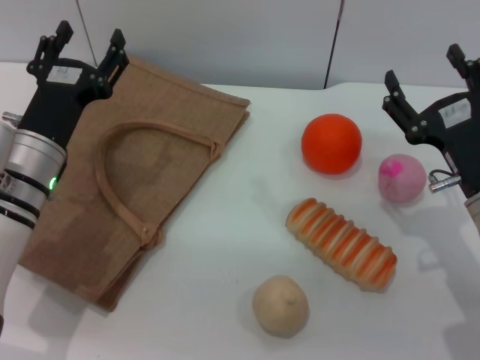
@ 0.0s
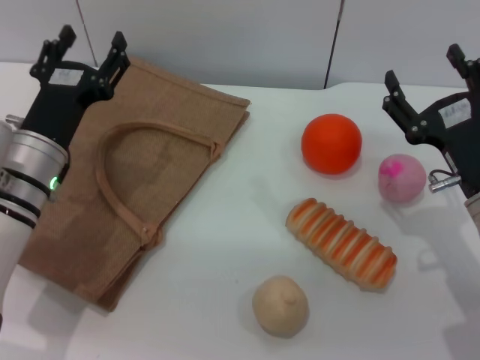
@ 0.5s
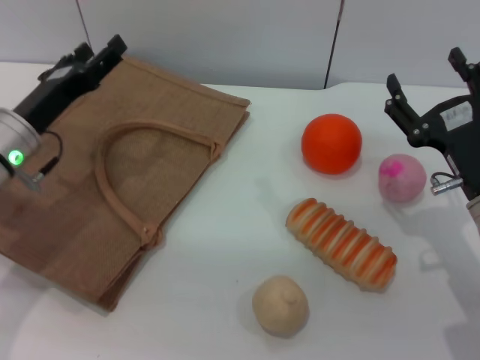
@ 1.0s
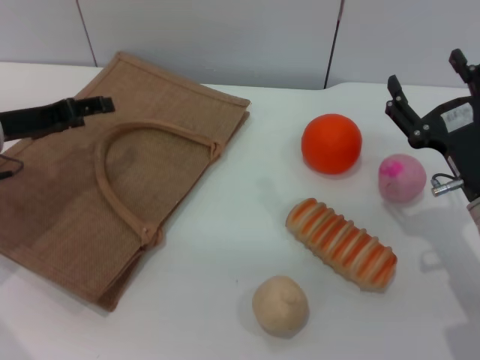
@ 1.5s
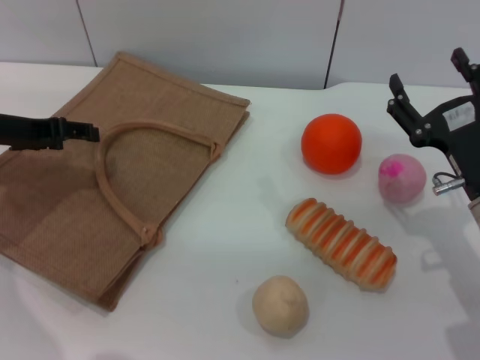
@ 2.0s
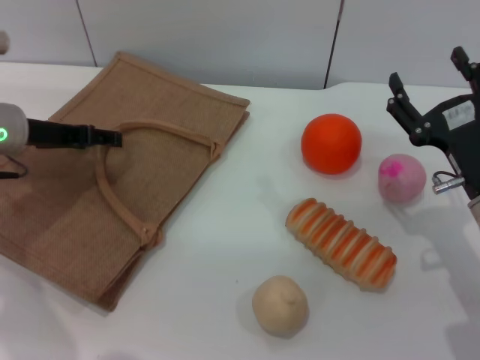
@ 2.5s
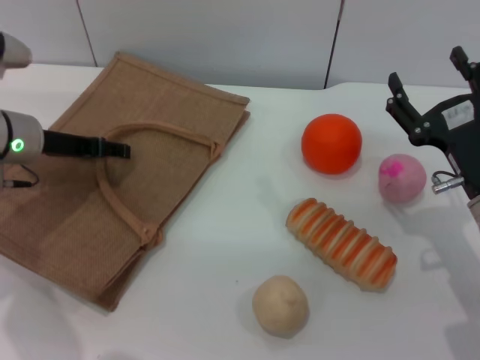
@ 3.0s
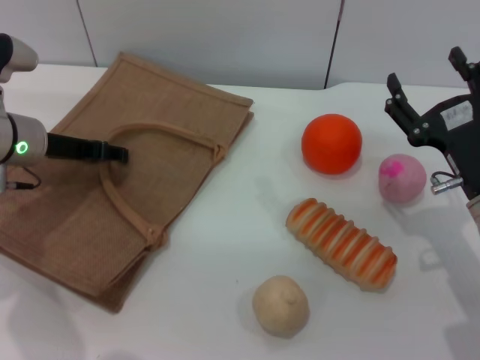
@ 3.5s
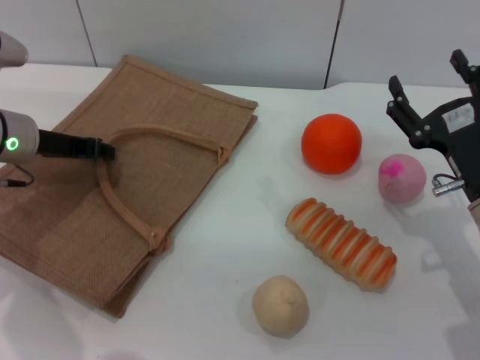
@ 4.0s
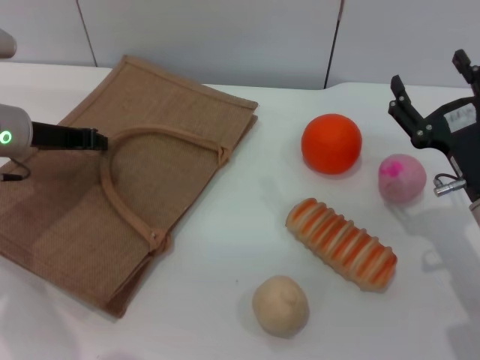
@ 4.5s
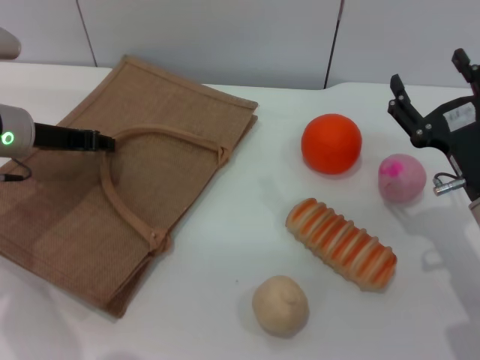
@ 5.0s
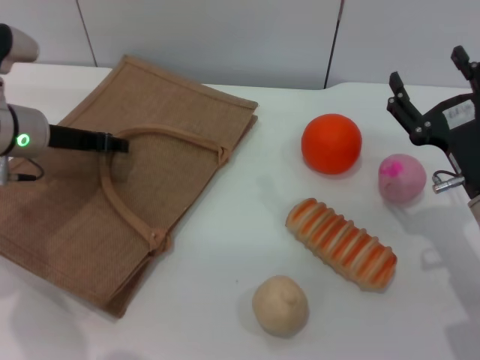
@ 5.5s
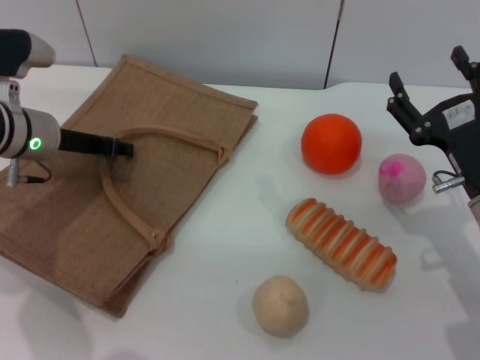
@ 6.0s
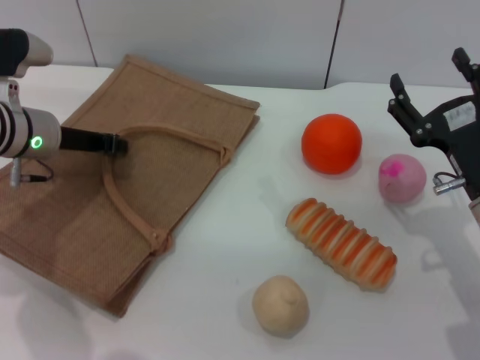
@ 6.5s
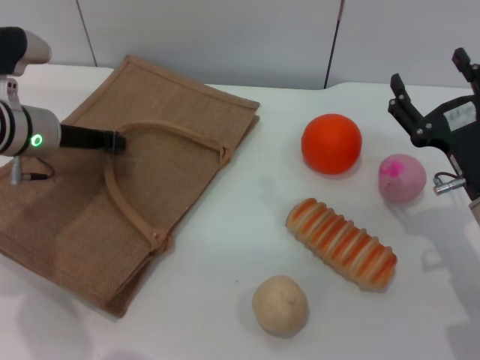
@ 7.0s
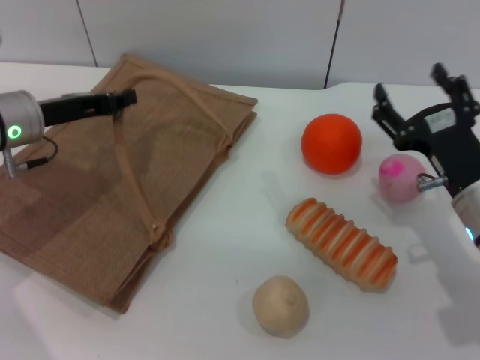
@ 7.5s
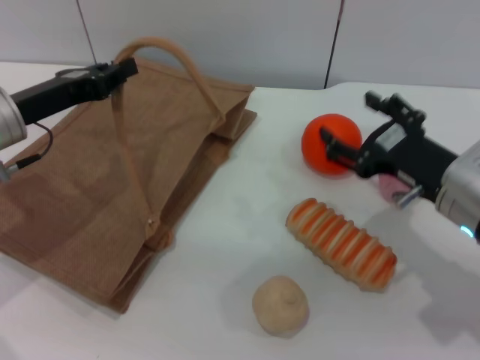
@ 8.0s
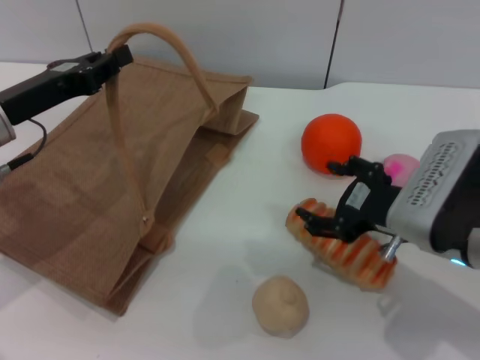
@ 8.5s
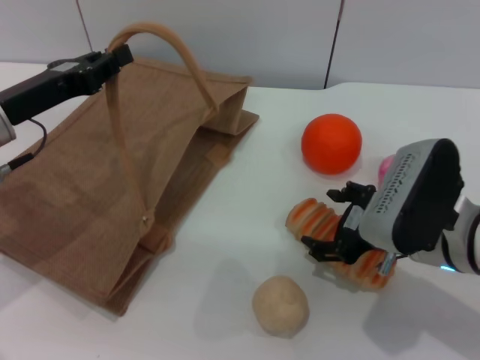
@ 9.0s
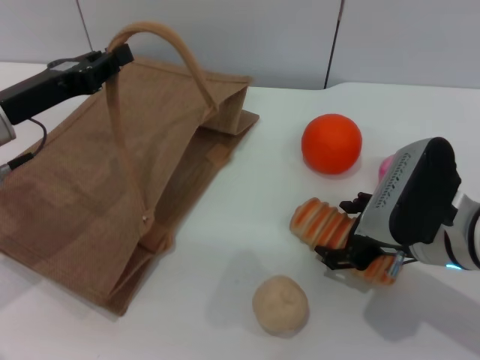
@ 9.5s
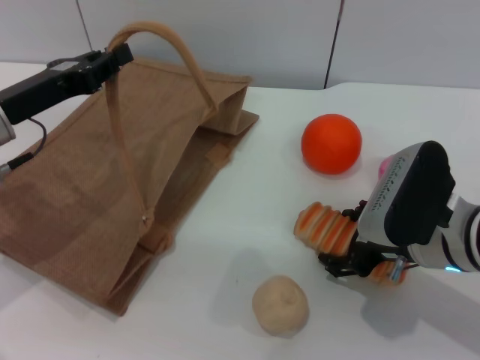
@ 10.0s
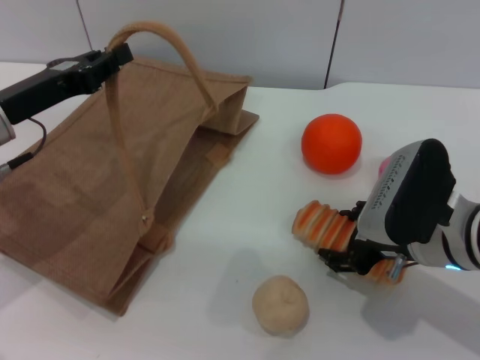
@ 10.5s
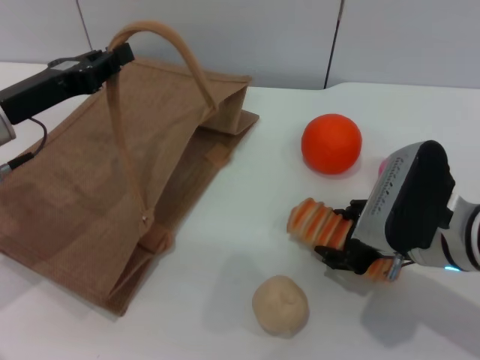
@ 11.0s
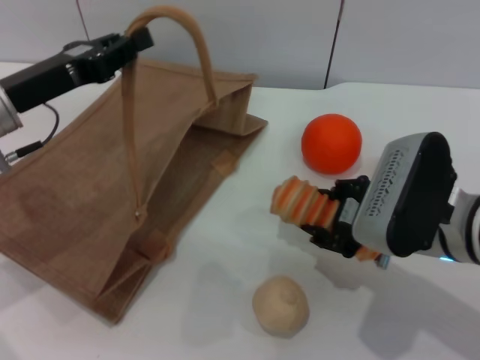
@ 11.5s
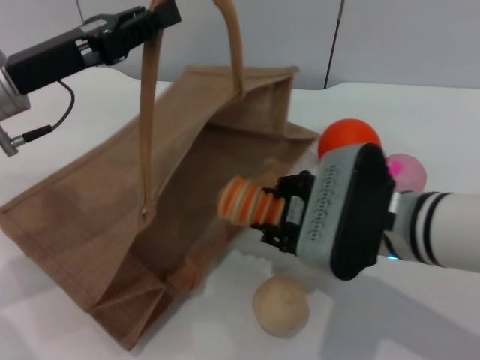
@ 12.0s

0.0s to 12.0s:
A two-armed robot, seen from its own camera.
Task of the whole recording: pick up the bread from the table and place it in the brown handbag.
Step, 0.0s to 7.0s: Lift the woven bag with the left gripper to open it.
Step, 7.5s to 11.5s: Pick up the bread with the right gripper.
0.0s to 2.0s: The left gripper is displaced to the left, upward and forward by some 15 cm.
2.0s to 4.0s: The left gripper closes its fingers.
4.0s to 6.0s: There are only small adjustments of the grippers.
6.0s to 8.0s: The left gripper shifts by approximately 5 cm, and closes up.
10.0s to 12.0s: The left gripper ends up some 5 cm from where it was, while the right gripper heads to the left, covering roughly 5 cm, and closes up.

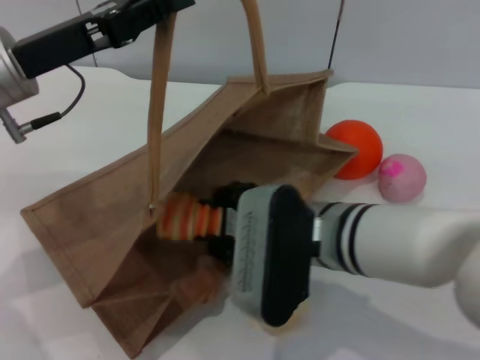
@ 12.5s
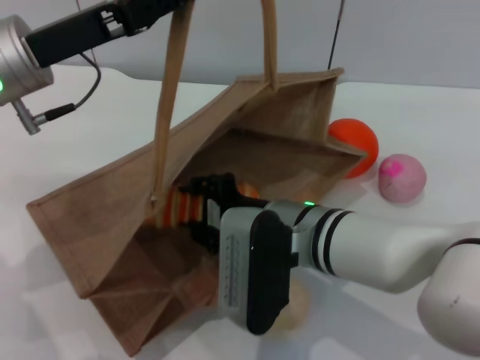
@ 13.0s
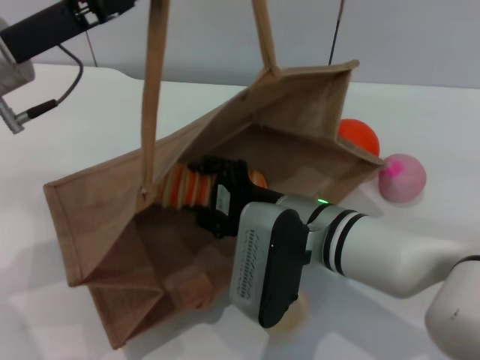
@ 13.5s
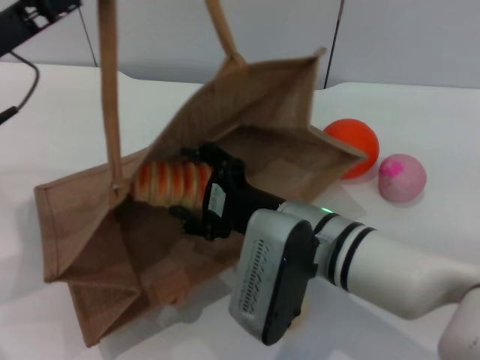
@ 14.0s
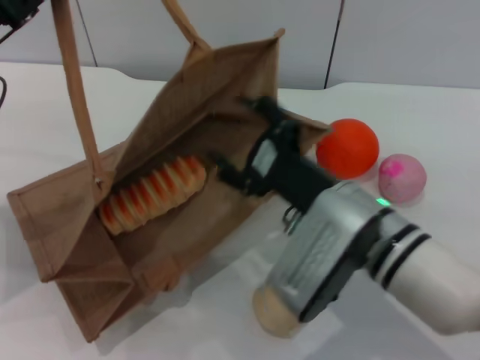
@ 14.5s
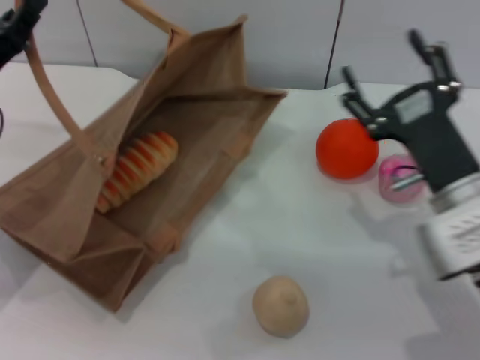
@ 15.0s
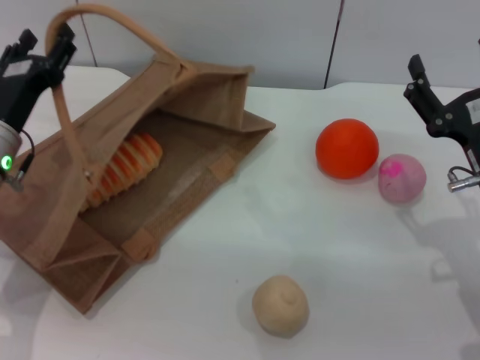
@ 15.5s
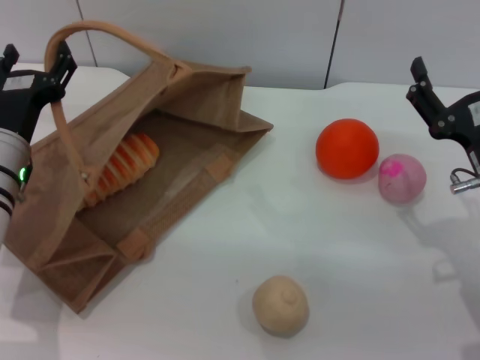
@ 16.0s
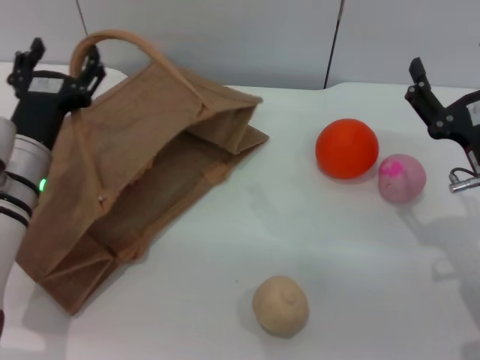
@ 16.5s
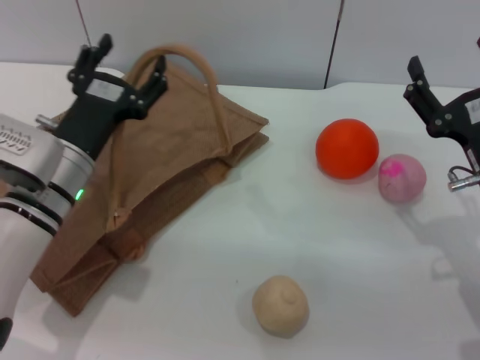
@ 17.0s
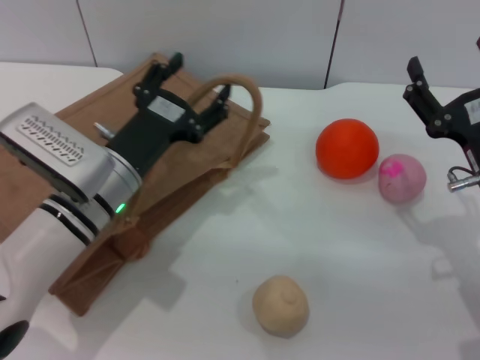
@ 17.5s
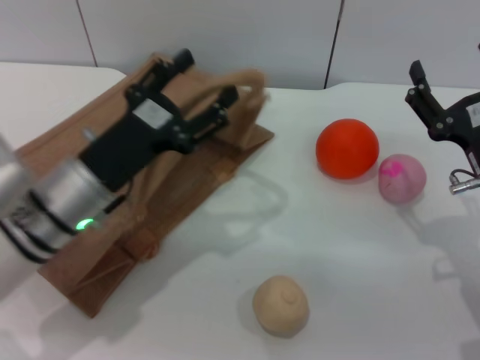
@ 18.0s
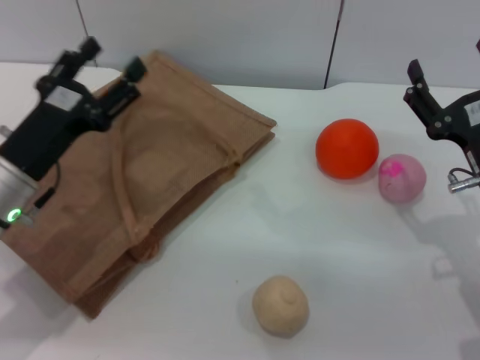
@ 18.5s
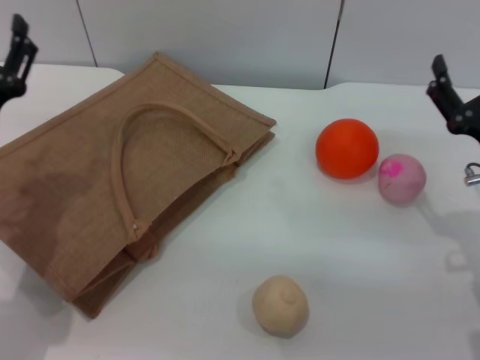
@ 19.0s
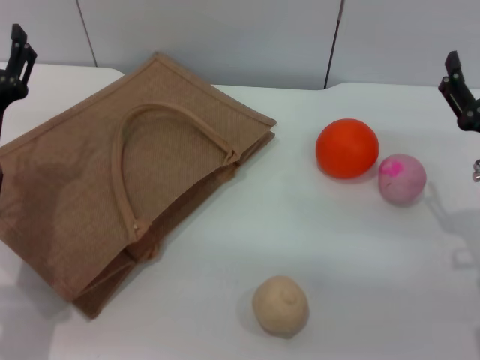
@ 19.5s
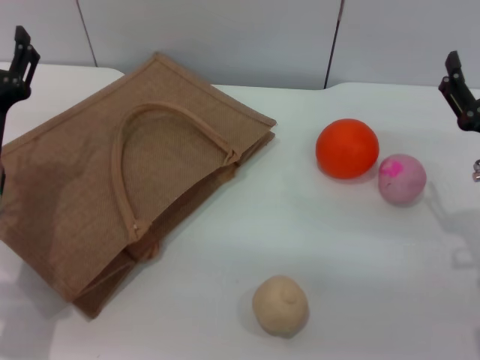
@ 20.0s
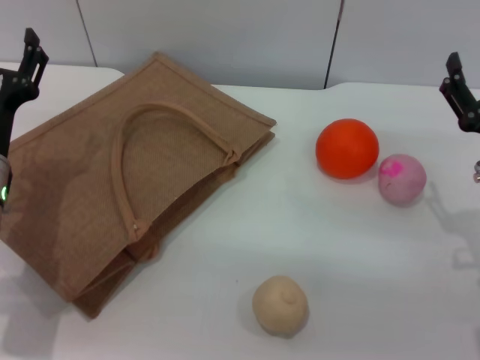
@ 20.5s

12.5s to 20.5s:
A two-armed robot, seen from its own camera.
Task of the whole recording: pick up the bread from the table and place it in the brown handbag.
Step, 12.5s to 14.0s: Place the bread into the woven bag with the right gripper.
Step, 14.5s to 18.5s: Lower the woven bag with the left gripper to close it.
12.5s to 14.5s: The right gripper opens. Meanwhile the left gripper moves to the left, approximately 5 cm.
14.5s to 16.5s: The right gripper travels to the right by about 15 cm; the left gripper is displaced downward and to the right by some 10 cm, and opens up.
16.5s to 18.5s: The left gripper moves some 5 cm to the right and comes back.

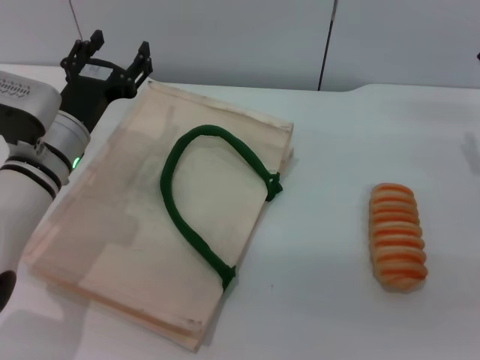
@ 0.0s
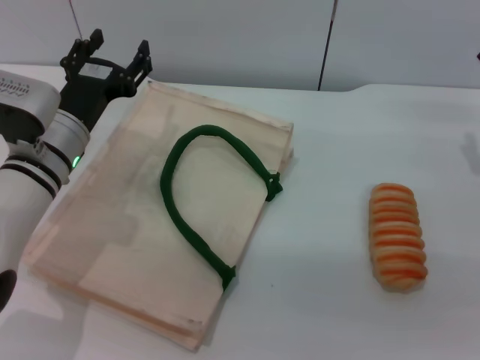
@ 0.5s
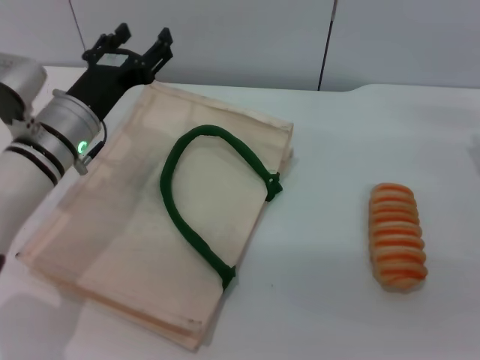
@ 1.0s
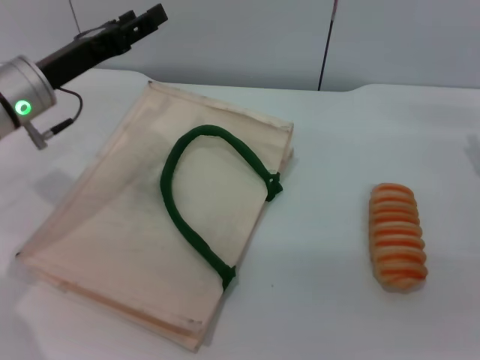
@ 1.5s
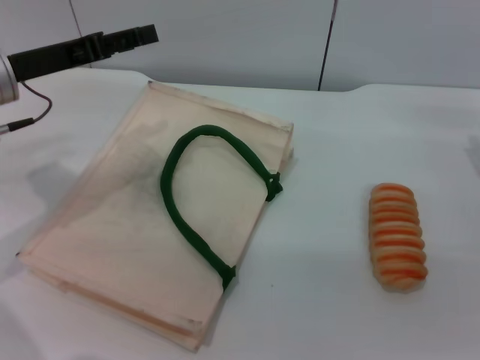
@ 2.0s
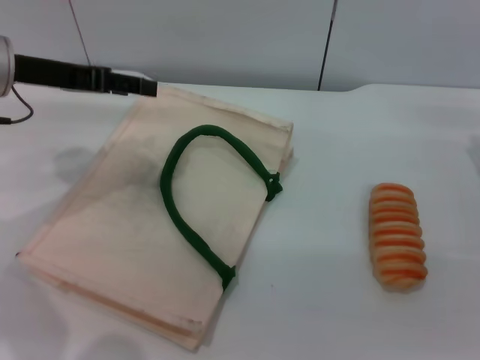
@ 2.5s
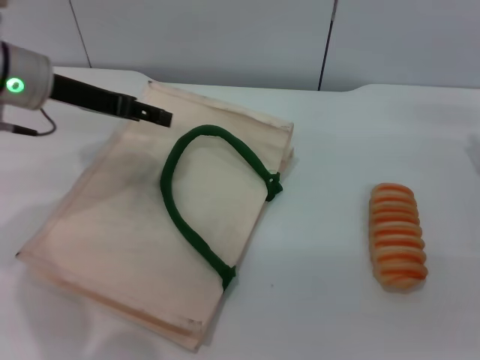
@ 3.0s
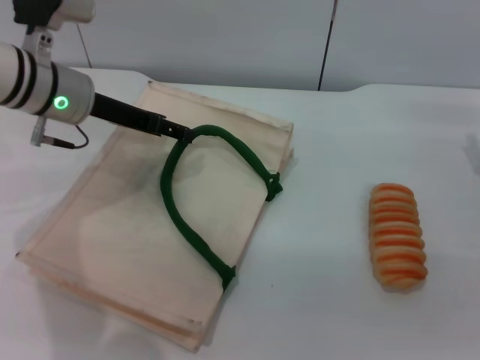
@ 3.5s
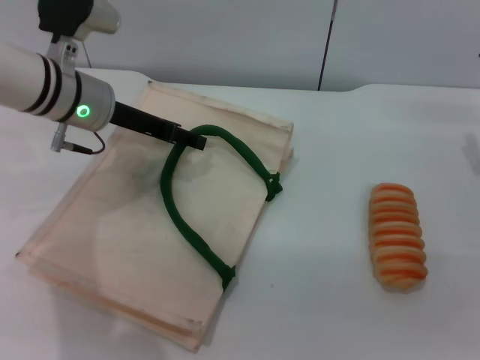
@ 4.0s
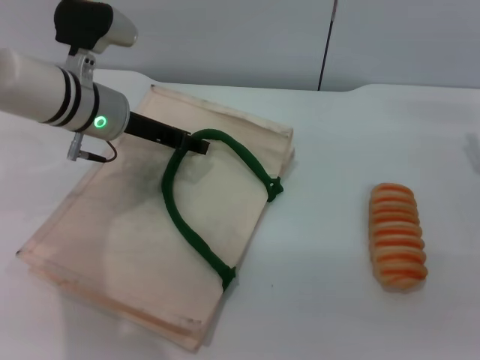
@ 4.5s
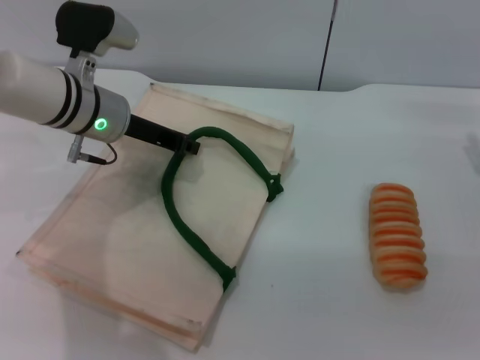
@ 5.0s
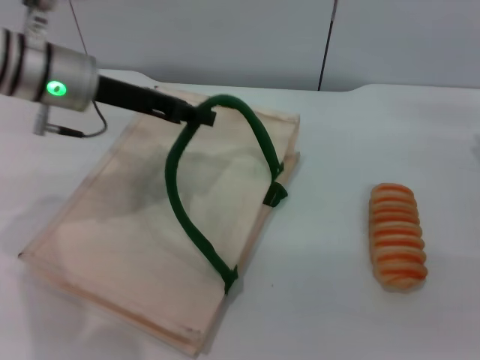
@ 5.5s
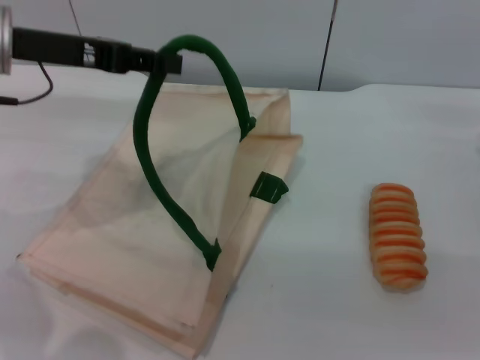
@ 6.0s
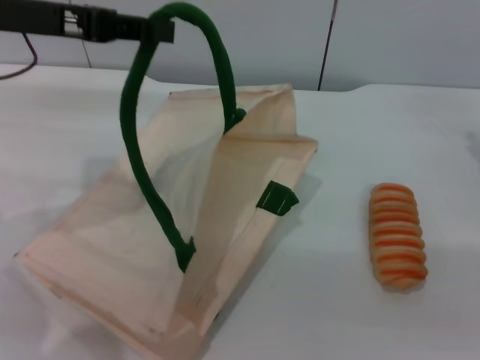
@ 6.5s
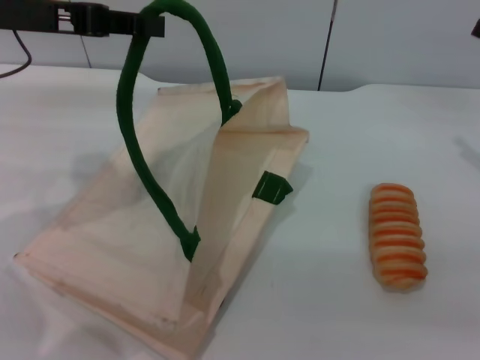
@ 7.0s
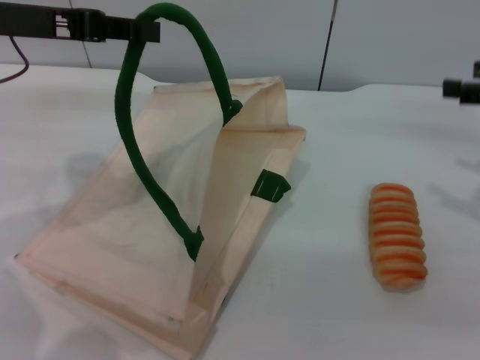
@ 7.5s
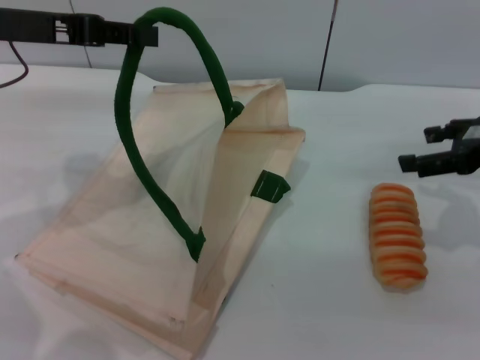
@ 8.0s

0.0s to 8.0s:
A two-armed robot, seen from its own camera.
Task of the whole recording: pick up the bread from the table and place it in the white handbag.
Step, 0.0s to 6.5s: Lift the woven bag with the left gripper to open it.
0.0s to 2.0s: The left gripper shifts approximately 10 cm upward and to the left.
2.0s to 4.0s: The left gripper moves to the right and forward, approximately 10 cm.
4.0s to 6.0s: The left gripper moves upward and to the left, about 10 cm, and closes its fingers.
6.0s to 8.0s: The right gripper heads upward, covering about 10 cm.
